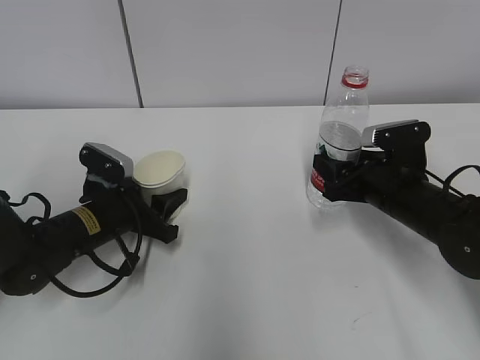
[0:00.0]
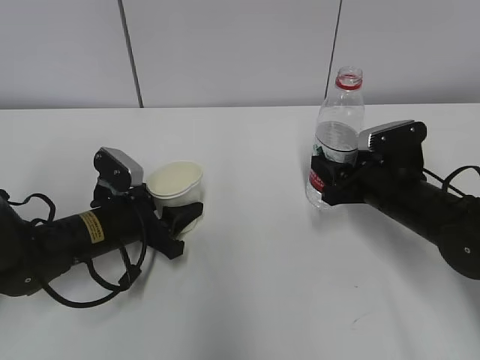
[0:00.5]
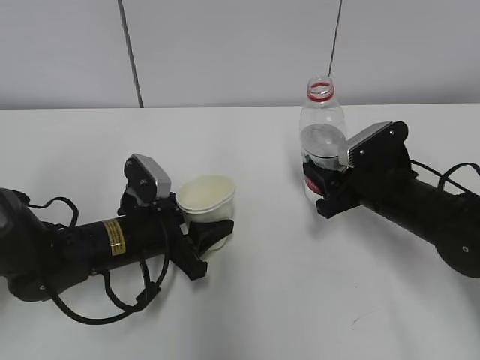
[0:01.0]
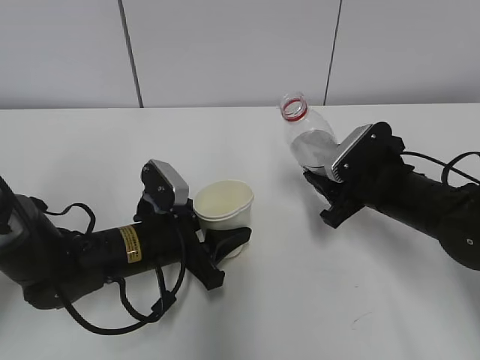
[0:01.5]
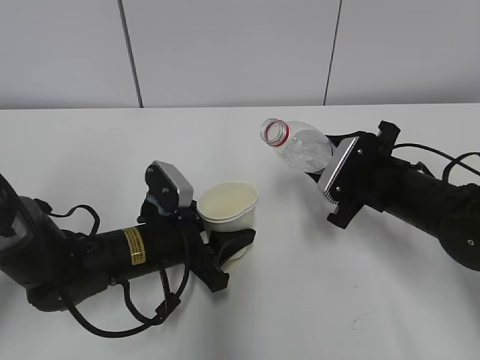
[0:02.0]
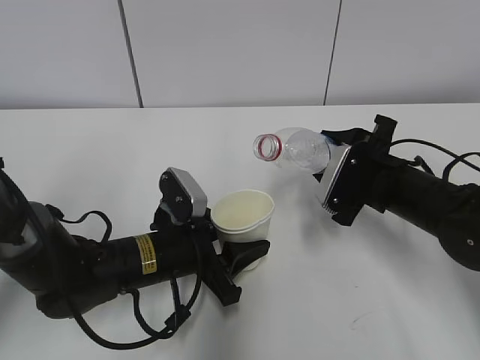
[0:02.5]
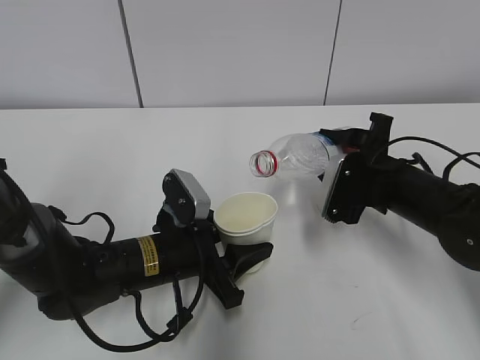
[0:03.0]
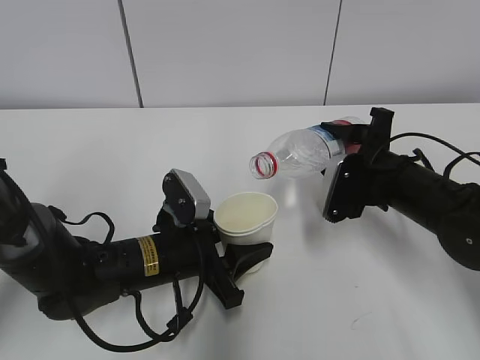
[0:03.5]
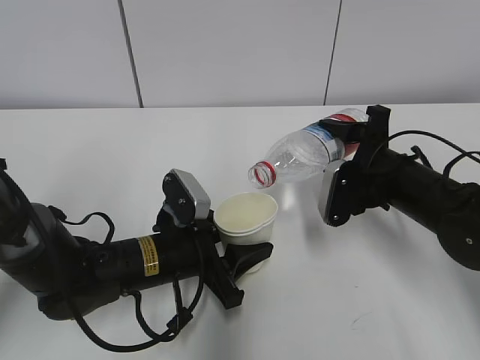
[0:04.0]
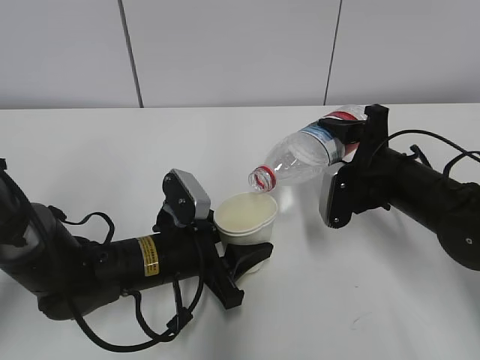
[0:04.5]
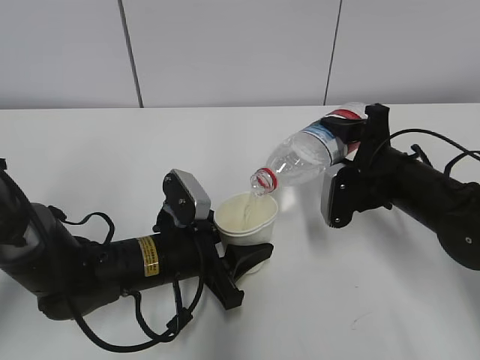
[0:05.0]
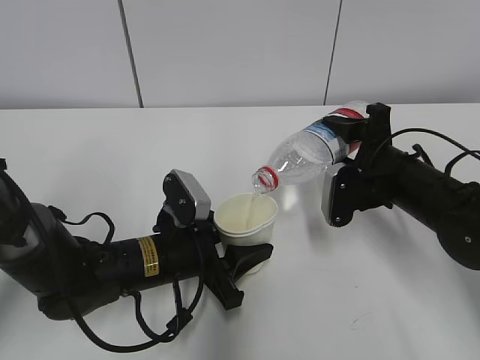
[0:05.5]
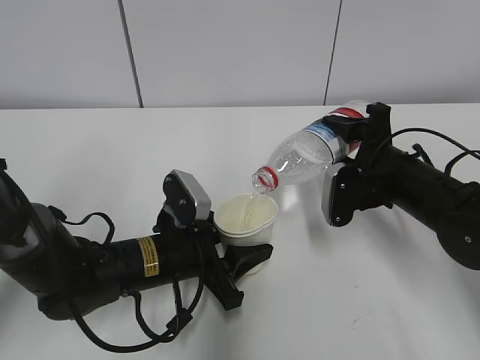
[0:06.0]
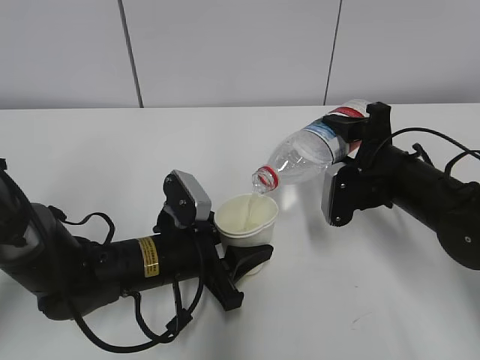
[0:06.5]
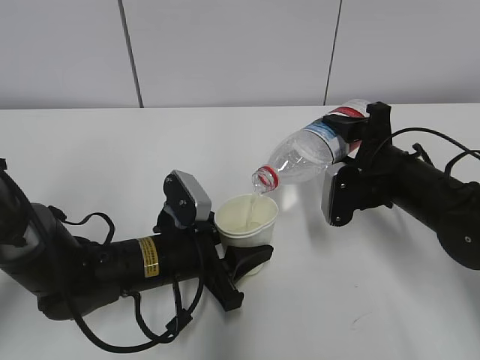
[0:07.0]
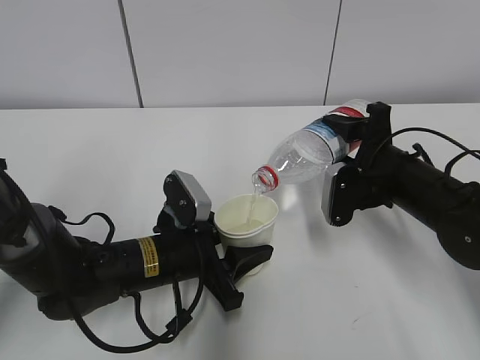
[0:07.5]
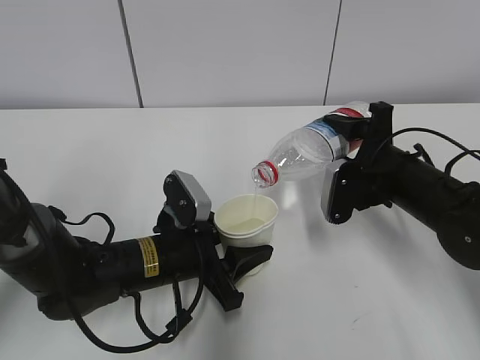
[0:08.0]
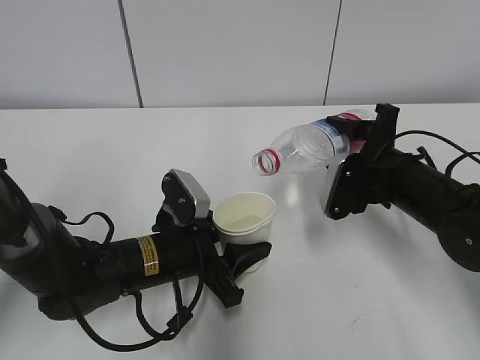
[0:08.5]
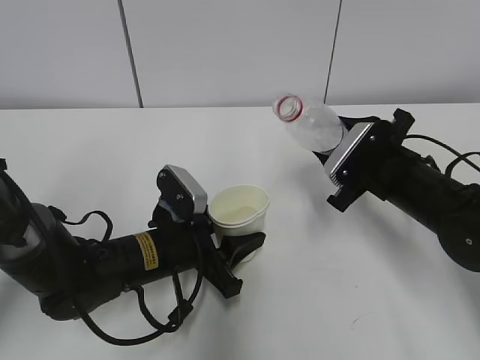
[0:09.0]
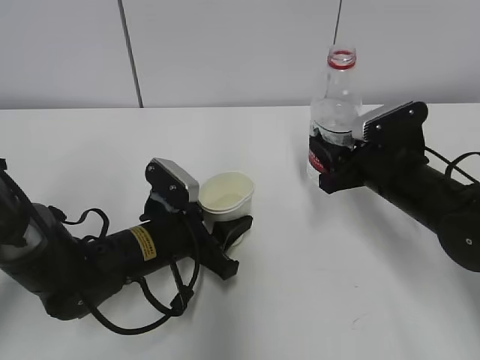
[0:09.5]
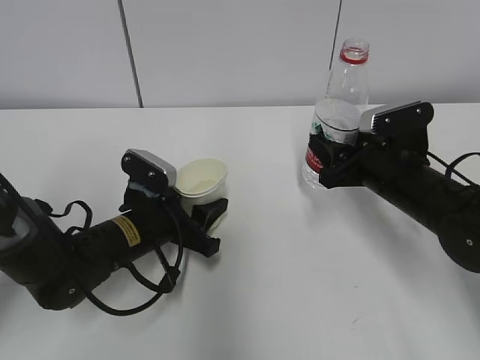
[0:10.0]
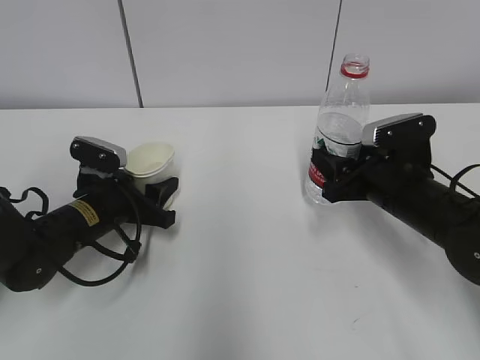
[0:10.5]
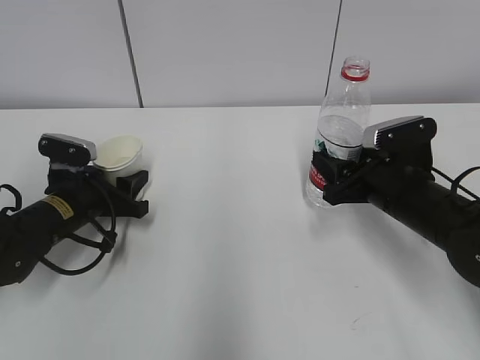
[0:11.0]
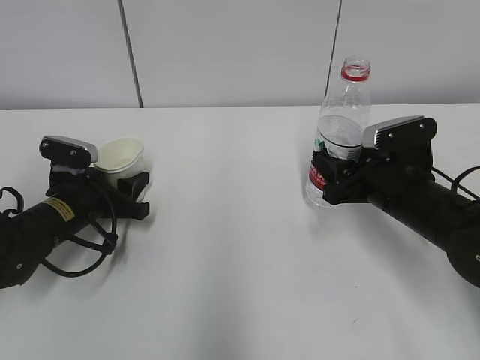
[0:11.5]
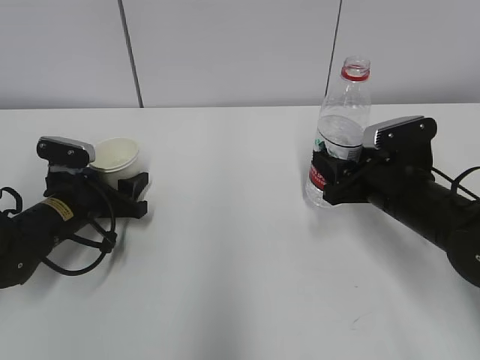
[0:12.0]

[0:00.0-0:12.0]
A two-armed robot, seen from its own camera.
Step, 0:02.0 to 0:04.5: Fill water with the left hand.
Step, 0:02.0 to 0:04.5: Pour water with the right hand.
Step, 0:05.0 to 0:06.0: Collect water with the right hand.
0:00.0 to 0:02.0: The left gripper goes some 5 cm to the right.
0:04.0 to 0:06.0: There are only small adjustments of the grippers.
0:06.0 to 0:08.0: The two grippers keep their place.
0:08.0 to 0:10.0: The left gripper ends up roughly 5 cm from where it was.
0:10.0 to 0:12.0: The left gripper moves to the left, some 10 cm.

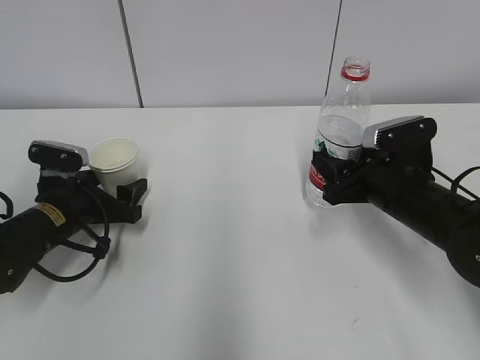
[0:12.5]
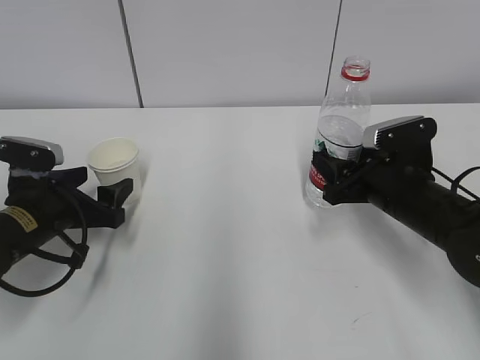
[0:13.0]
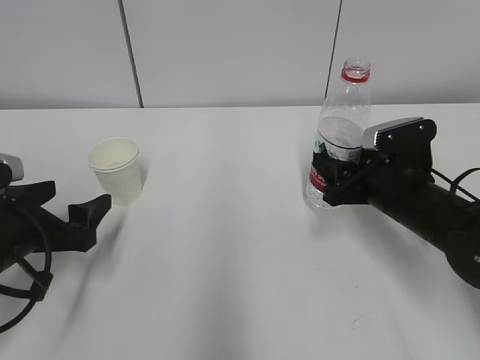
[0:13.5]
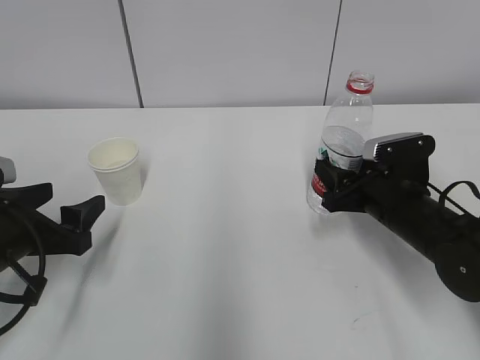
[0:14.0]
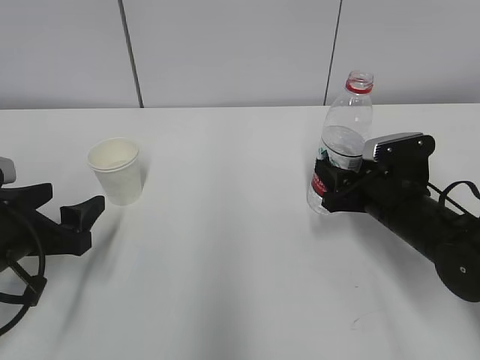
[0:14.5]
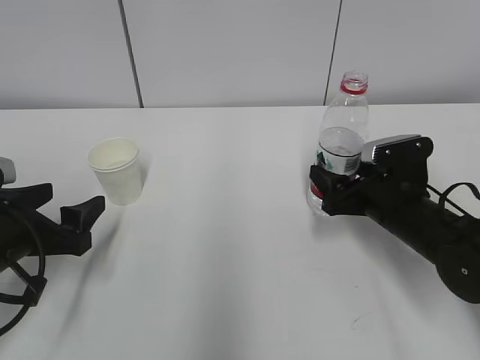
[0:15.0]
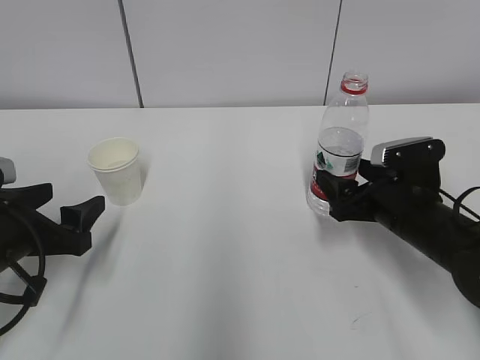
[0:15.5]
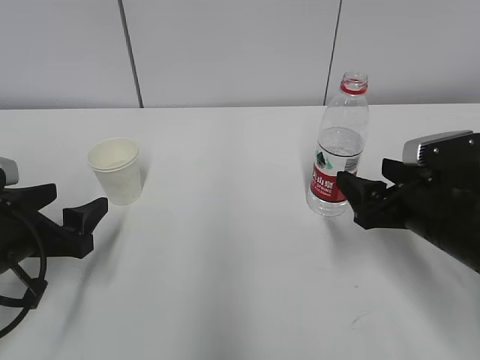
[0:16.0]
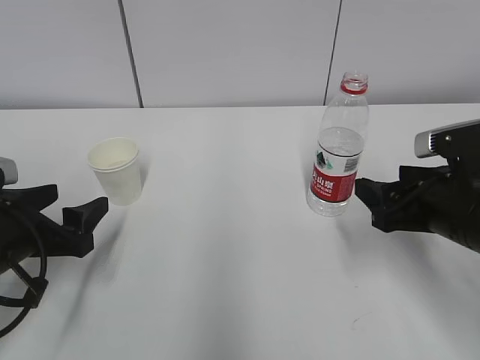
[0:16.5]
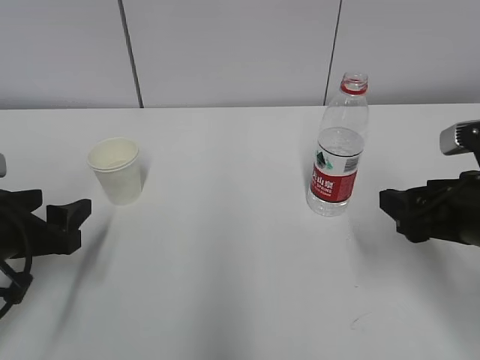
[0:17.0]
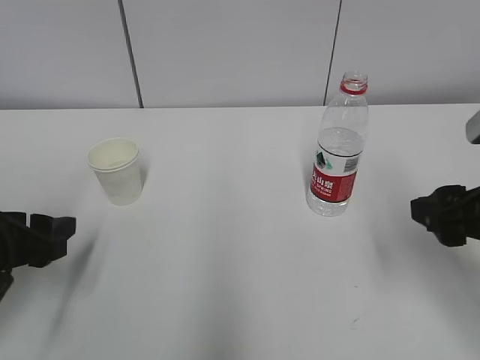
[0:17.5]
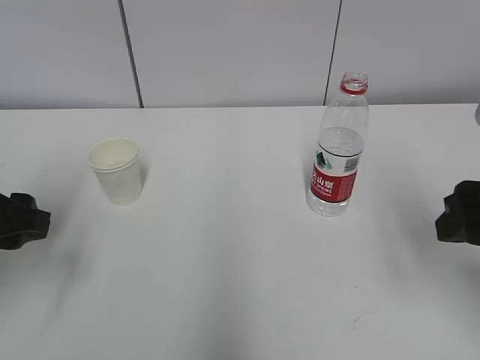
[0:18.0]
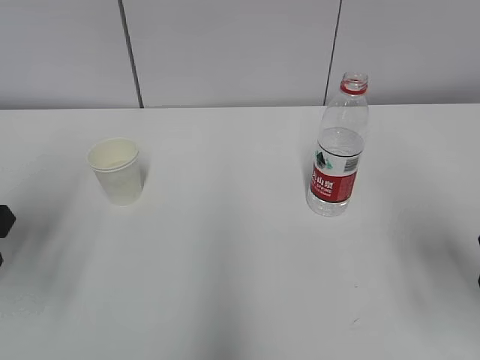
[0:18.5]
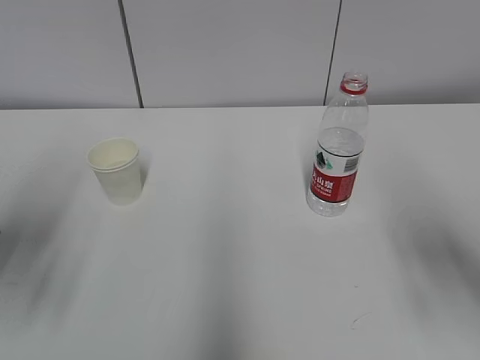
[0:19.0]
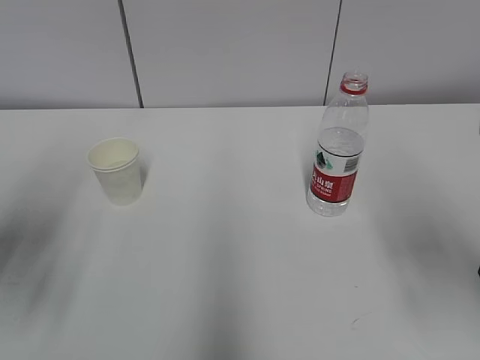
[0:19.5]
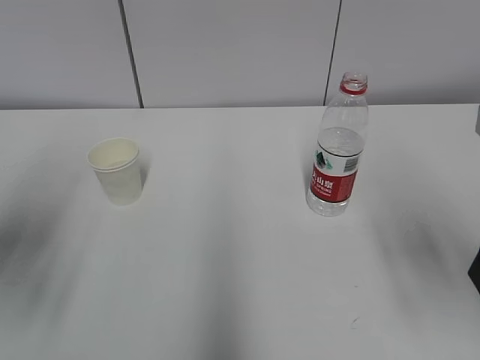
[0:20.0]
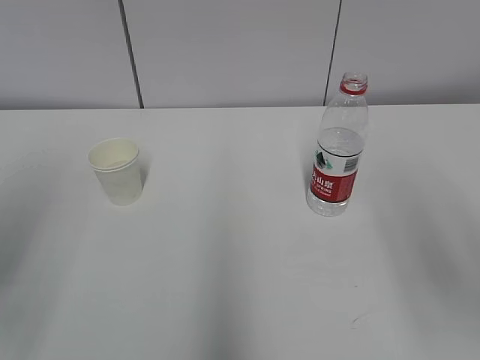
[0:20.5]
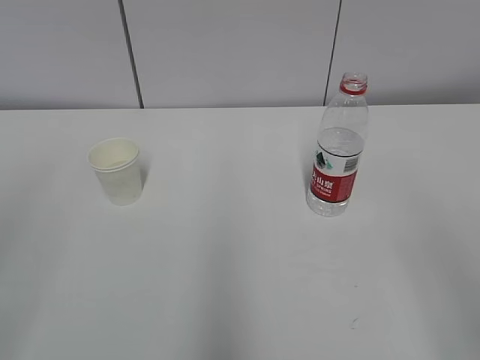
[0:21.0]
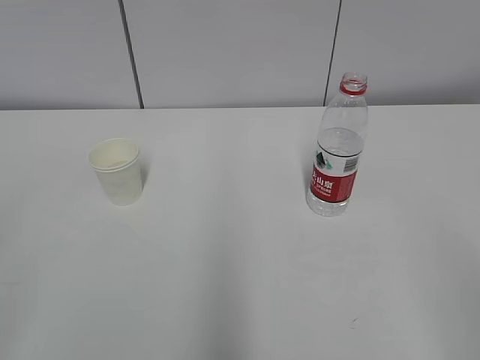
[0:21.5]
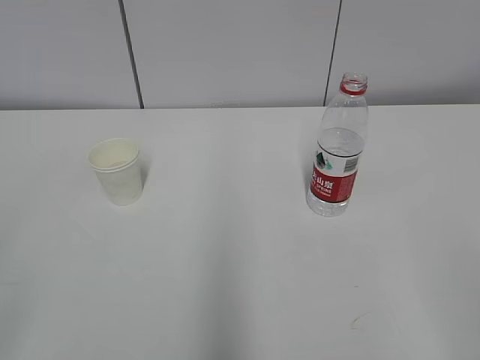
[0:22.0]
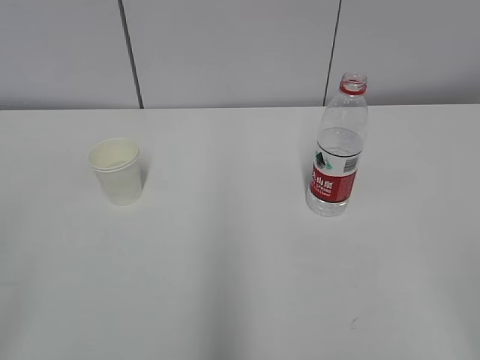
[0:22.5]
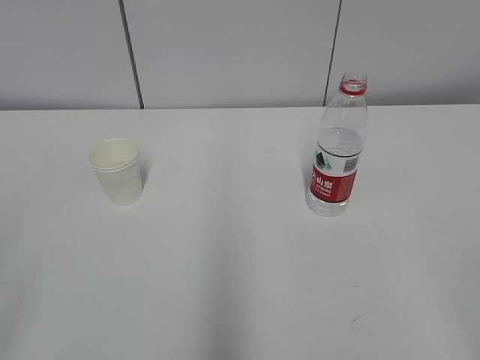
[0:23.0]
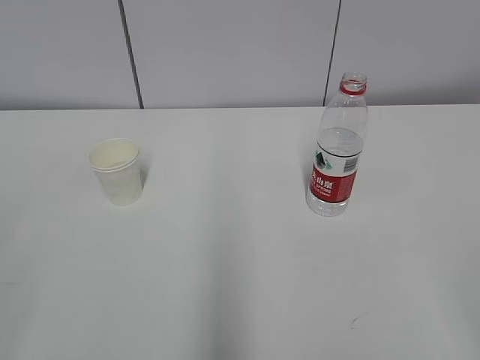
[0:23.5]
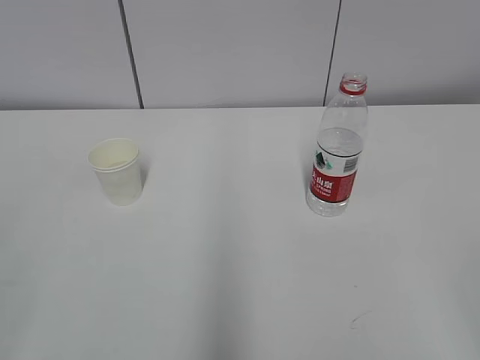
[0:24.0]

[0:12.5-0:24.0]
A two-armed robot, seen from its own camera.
0:12.5 to 0:14.5: The left gripper heads backward and upward, covering approximately 10 cm.
0:14.5 to 0:16.5: The right gripper goes approximately 10 cm backward and upward, and opens.
0:16.5 to 0:18.5: The right gripper is displaced upward and backward by roughly 10 cm; the left gripper heads upward, covering approximately 15 cm, and closes.
0:18.5 to 0:20.0: There are only small adjustments of the grippers.
0:20.0 to 0:22.0: The two grippers go about 20 cm backward.

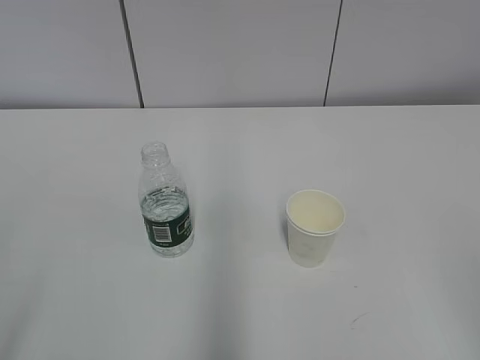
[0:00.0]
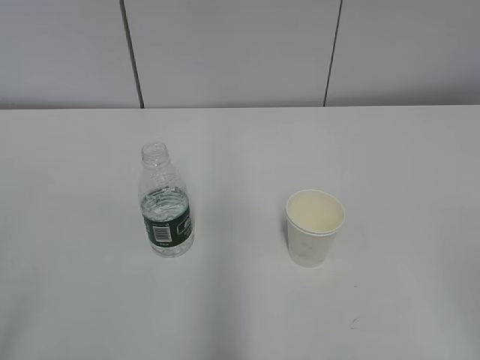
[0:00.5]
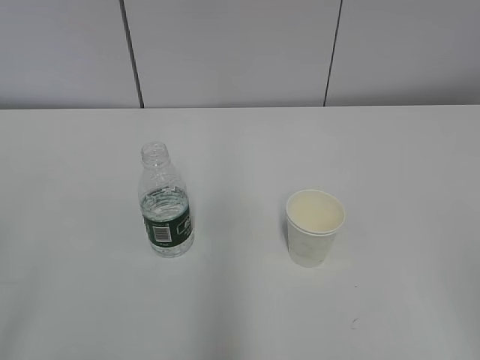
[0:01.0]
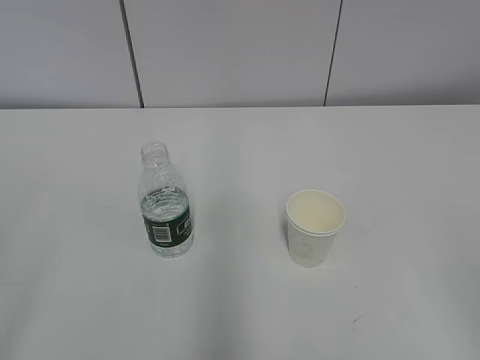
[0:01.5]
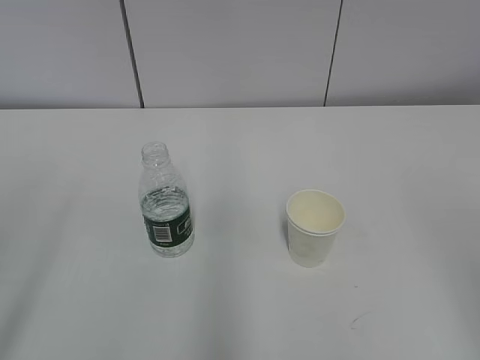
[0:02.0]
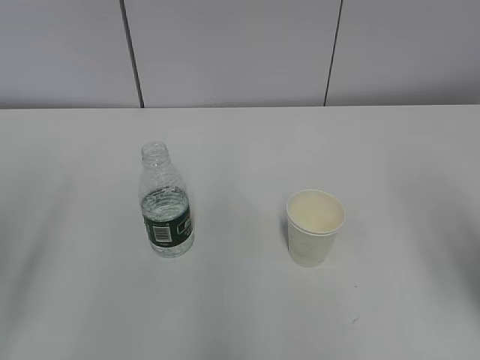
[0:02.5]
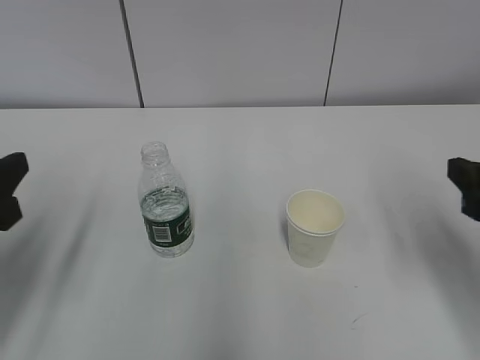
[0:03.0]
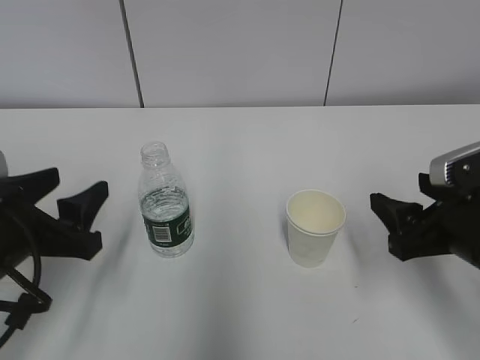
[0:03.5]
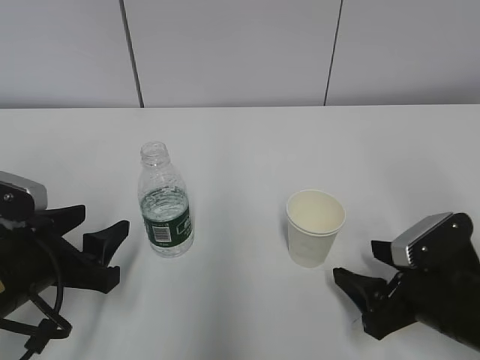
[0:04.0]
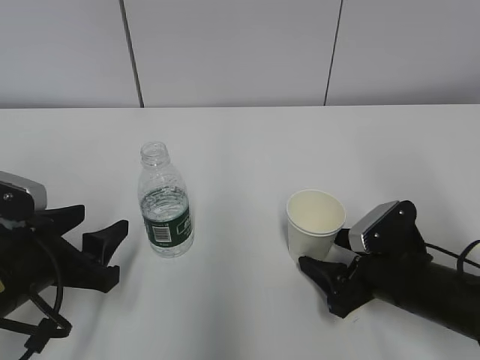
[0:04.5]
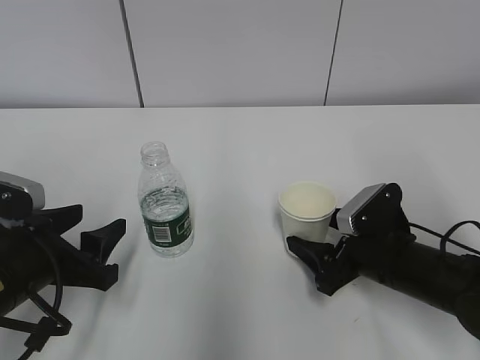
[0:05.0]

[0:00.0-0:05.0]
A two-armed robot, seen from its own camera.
Step, 0:00.0 to 0:04.5: Grab the paper cup with the right hand.
0:02.5 to 0:05.0: The left gripper moves downward, forward and to the right, some 20 cm; the right gripper is displaced downward, forward and to the left by approximately 30 cm.
